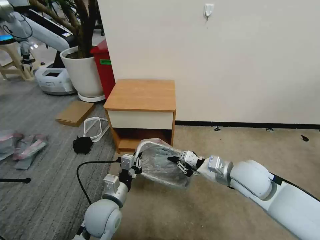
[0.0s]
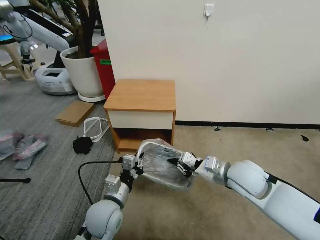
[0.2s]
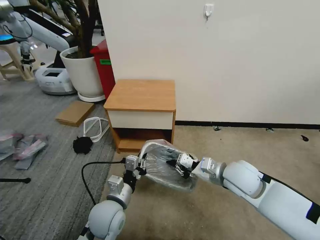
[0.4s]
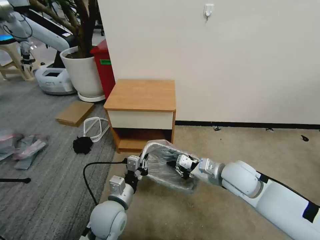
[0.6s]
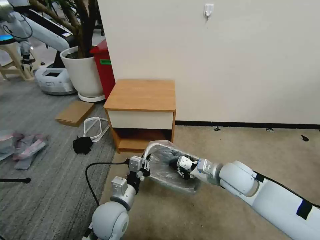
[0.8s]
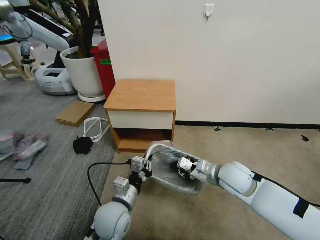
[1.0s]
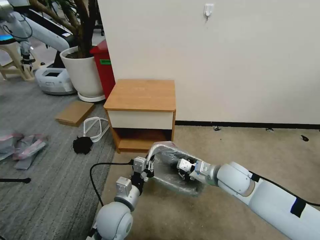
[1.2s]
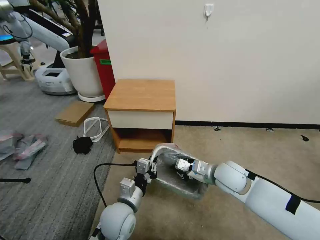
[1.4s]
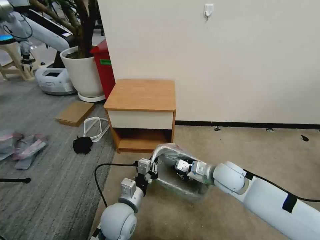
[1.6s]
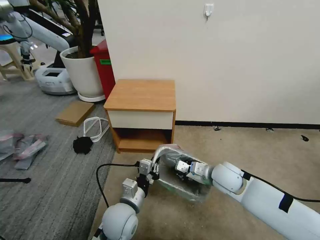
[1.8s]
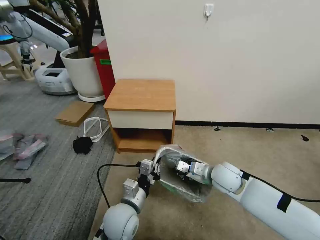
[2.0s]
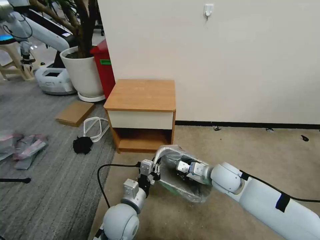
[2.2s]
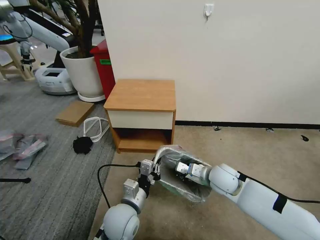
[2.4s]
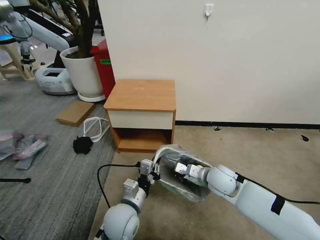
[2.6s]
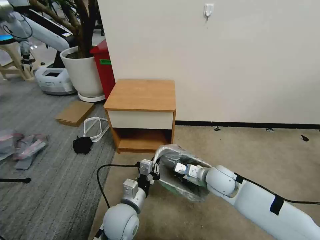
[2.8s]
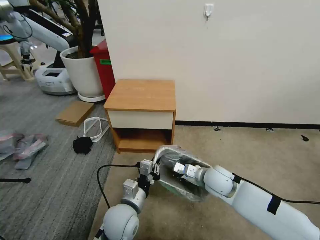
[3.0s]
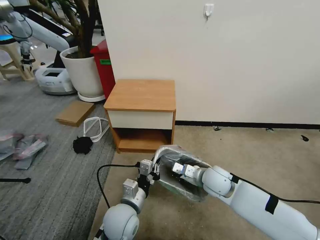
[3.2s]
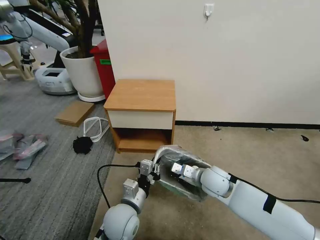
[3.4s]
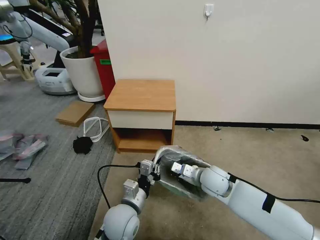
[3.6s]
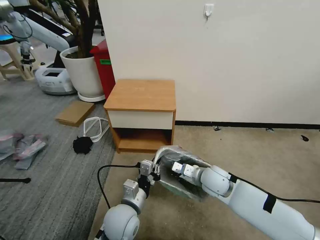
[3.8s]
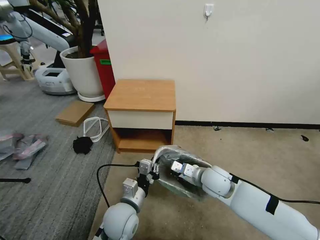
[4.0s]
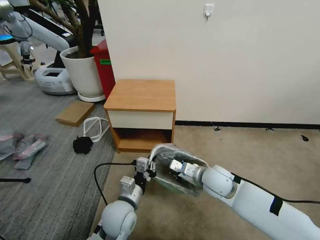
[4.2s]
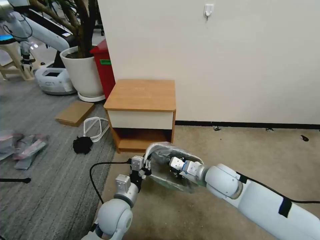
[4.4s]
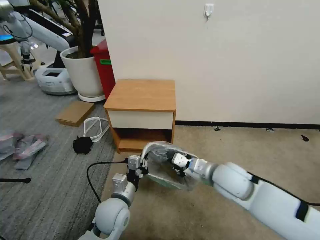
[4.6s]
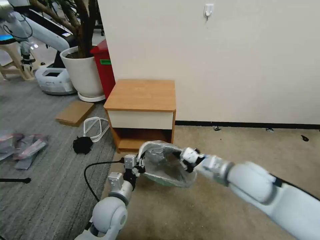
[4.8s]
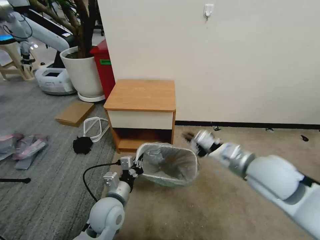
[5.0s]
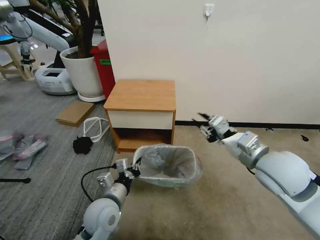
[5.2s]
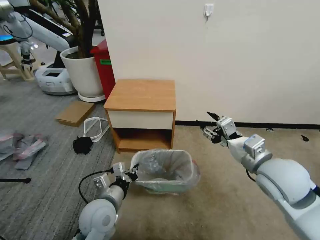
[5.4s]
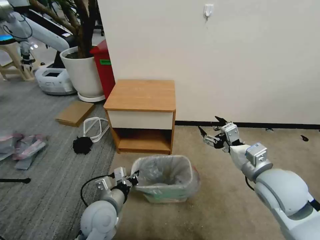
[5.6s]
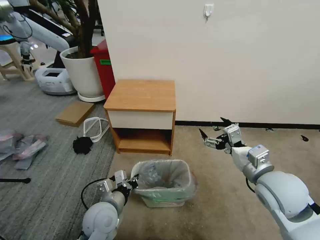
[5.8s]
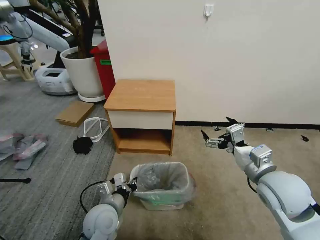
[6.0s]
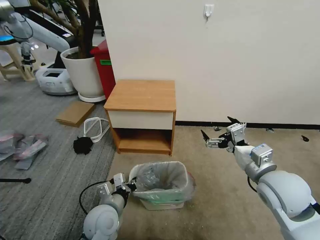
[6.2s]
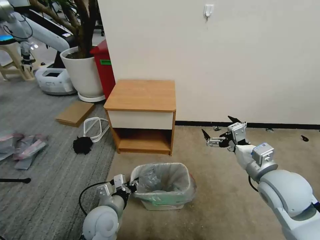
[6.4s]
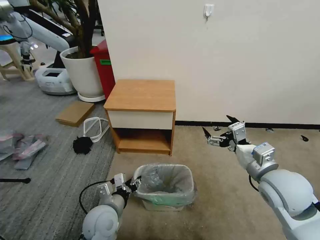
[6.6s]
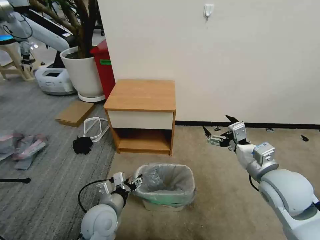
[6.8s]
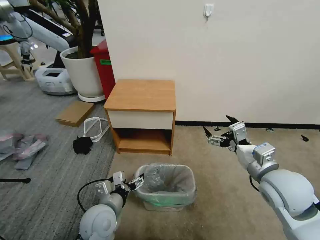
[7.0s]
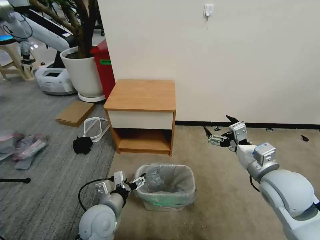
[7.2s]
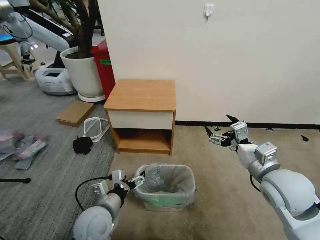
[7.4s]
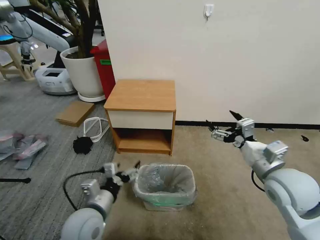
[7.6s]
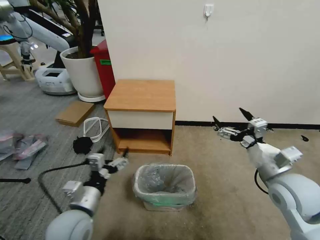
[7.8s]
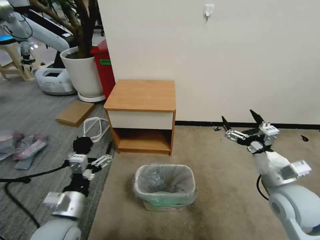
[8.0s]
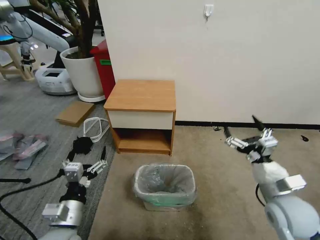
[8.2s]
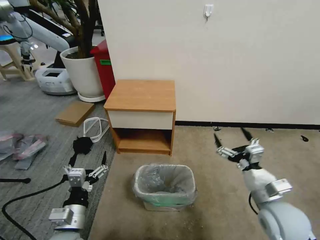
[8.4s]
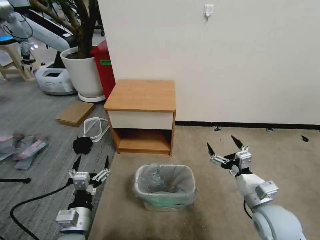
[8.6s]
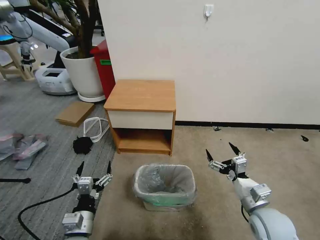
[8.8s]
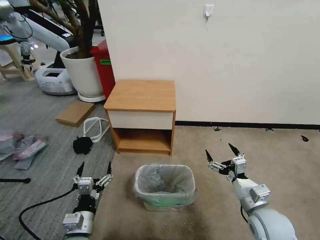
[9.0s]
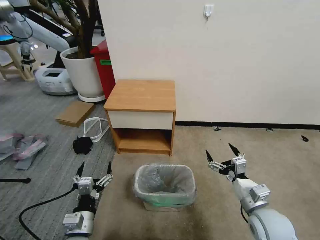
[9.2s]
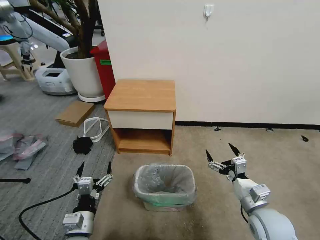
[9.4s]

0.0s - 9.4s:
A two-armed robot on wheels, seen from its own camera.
Task of the whole recording: Pick up the garbage bag from the table and place it over the trash can.
0.0s - 1.6s: The right gripper moves downward, approximately 5 cm.
1.6s - 3.2s: The grippers make only small movements.
3.2s - 4.8s: The right gripper moves upward and backward, roughly 15 cm.
4.8s - 6.2s: The right gripper is displaced to the right by about 5 cm, and opens its fingers.
6.2s - 7.8s: The left gripper moves upward, roughly 5 cm, and opens.
7.8s - 9.4s: The two grippers go some 10 cm downward.

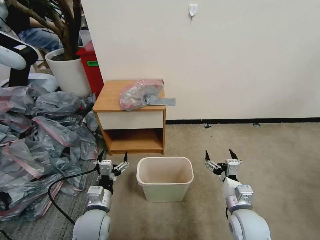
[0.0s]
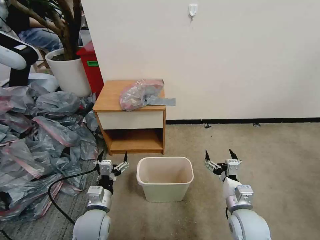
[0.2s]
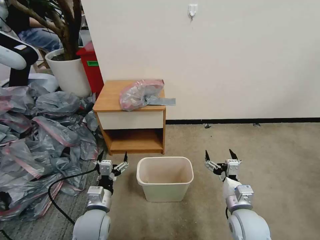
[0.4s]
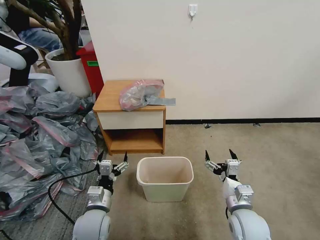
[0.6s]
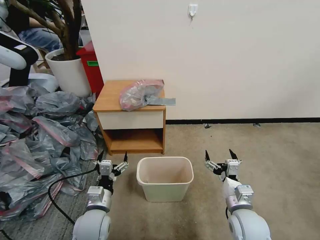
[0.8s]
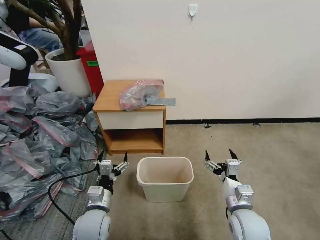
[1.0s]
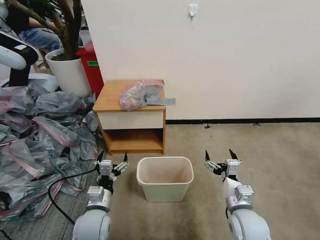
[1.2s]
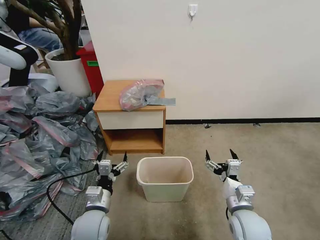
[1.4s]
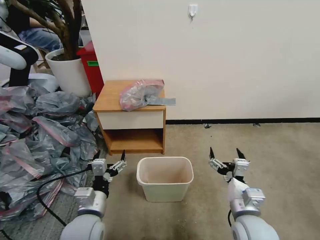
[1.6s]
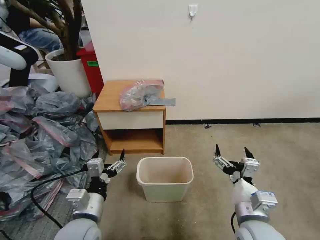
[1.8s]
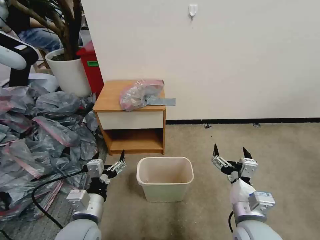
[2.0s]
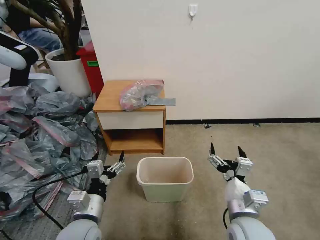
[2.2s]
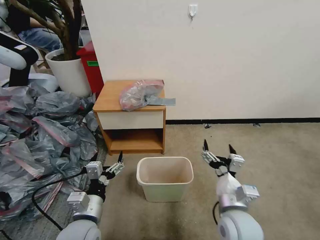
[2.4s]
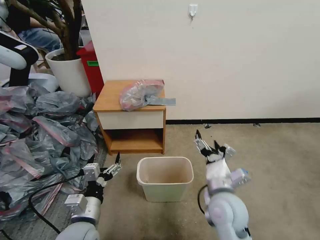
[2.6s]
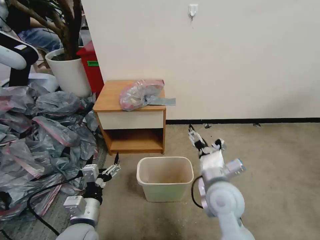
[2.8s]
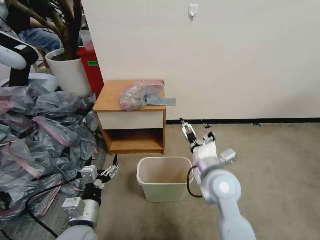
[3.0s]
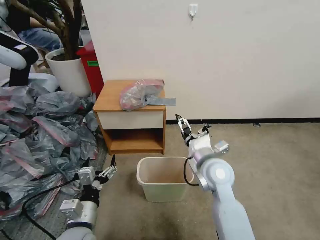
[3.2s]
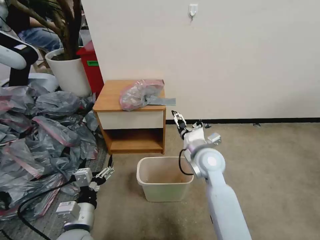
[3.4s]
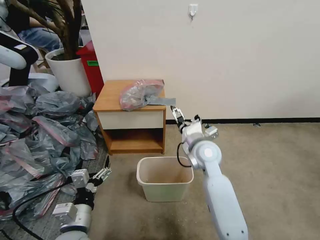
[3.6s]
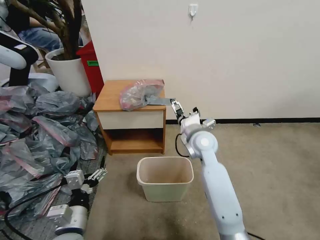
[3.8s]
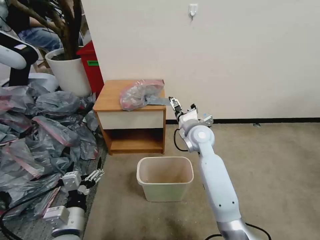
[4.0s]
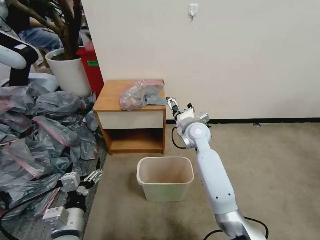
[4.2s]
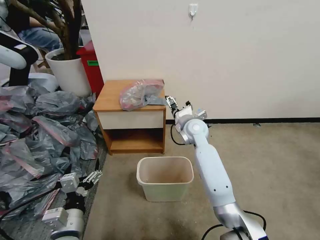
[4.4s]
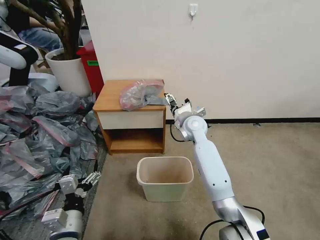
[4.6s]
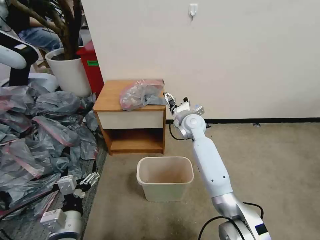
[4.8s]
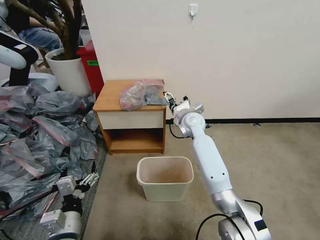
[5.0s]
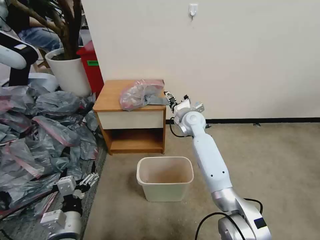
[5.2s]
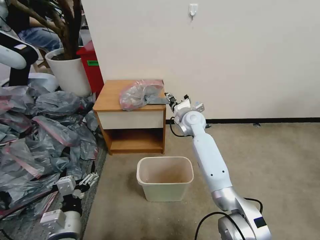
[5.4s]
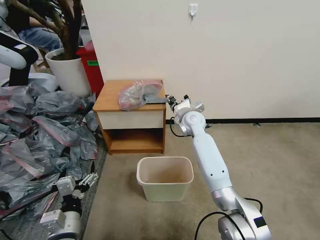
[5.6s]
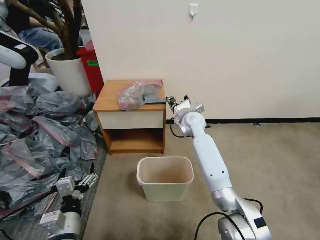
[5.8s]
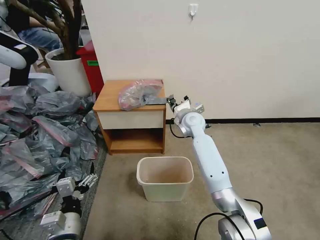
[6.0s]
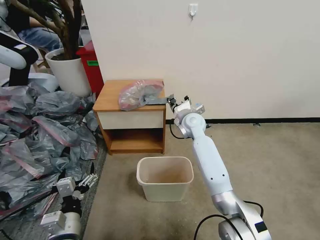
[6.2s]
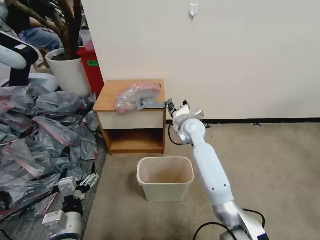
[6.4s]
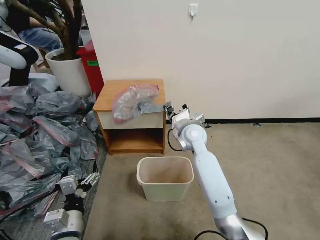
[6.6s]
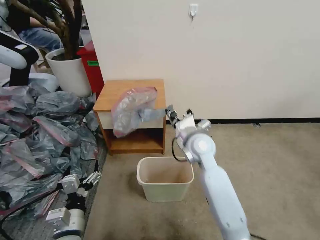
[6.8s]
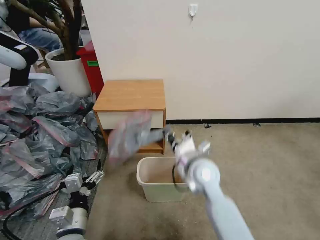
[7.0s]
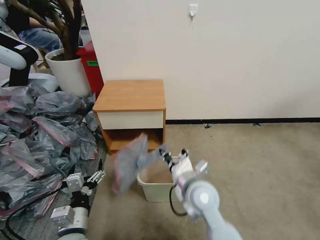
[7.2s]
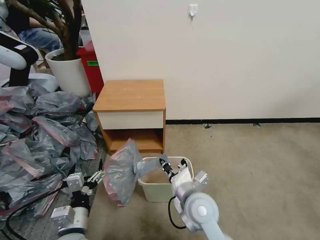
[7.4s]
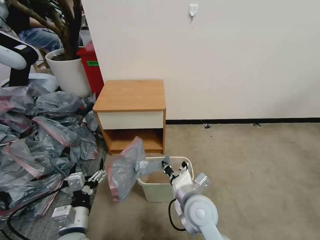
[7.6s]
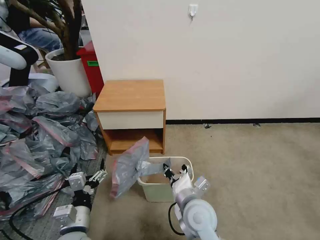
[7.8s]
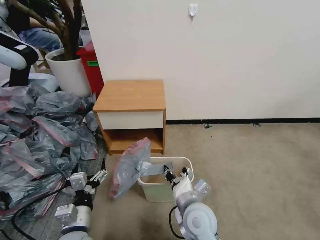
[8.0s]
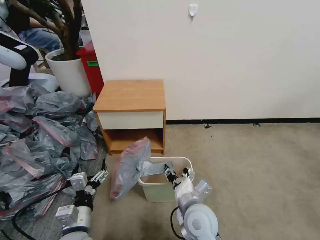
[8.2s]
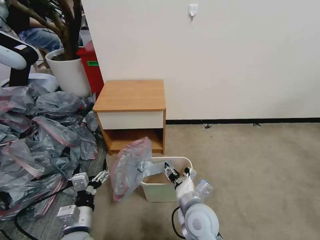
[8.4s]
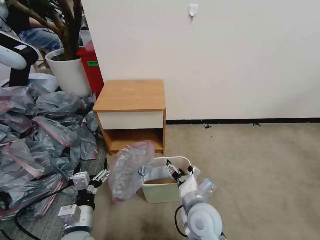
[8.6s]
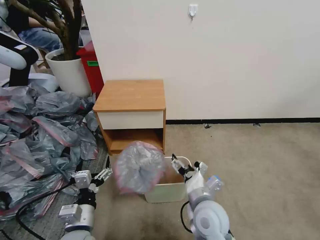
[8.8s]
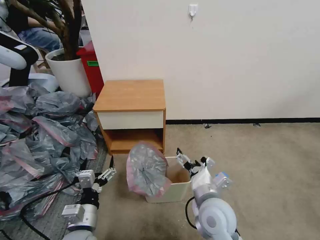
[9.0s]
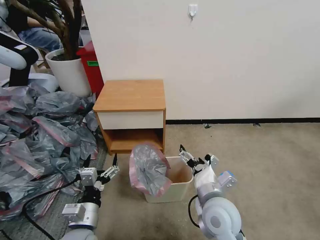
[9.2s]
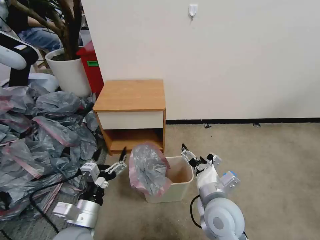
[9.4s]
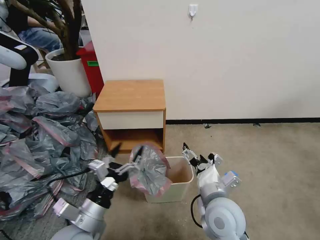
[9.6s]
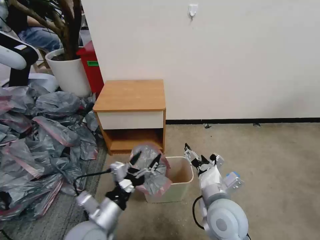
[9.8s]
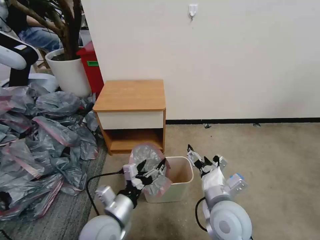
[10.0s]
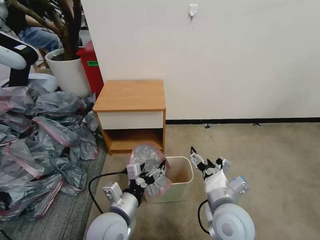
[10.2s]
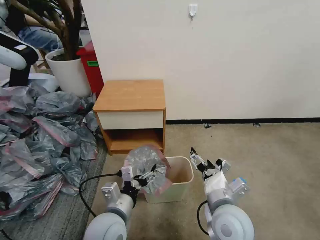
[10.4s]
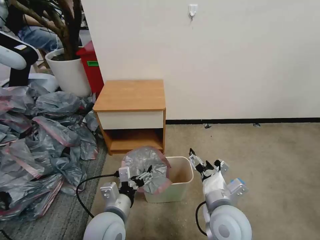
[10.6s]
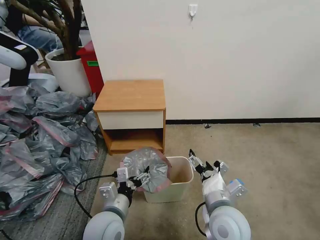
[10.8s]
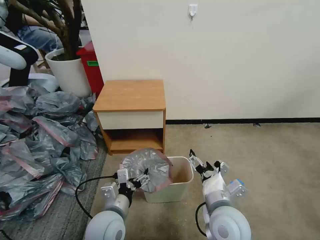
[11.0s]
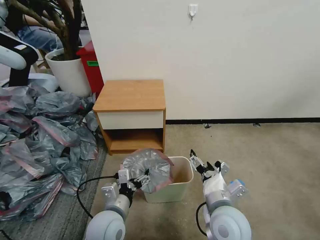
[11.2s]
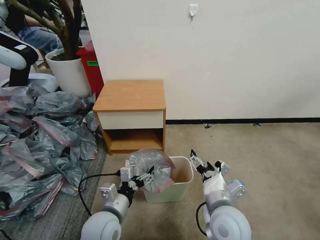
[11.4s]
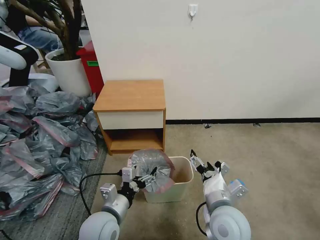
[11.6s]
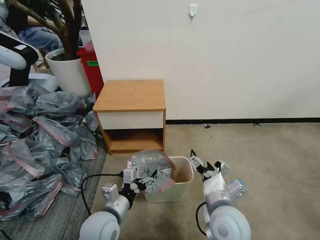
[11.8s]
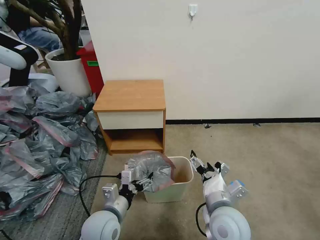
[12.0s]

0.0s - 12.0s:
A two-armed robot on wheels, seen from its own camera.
Task of the whole recording: Pick up the garbage bag from the table and place it over the trash can.
1.6s - 3.0s: The right gripper moves forward, to the left and upward, approximately 15 cm.
3.0s - 4.4s: The right gripper heads forward, covering approximately 20 cm.
4.4s - 6.0s: The right gripper closes.
6.0s - 7.6s: The right gripper travels backward by some 30 cm.
7.6s - 9.0s: The right gripper opens.
9.0s - 10.4s: The left gripper shifts about 10 cm to the right.
10.4s - 12.0s: The left gripper moves about 5 cm.

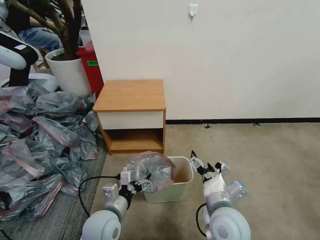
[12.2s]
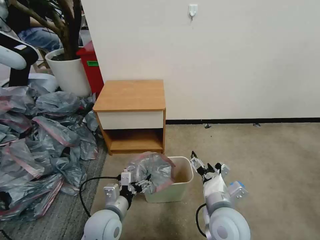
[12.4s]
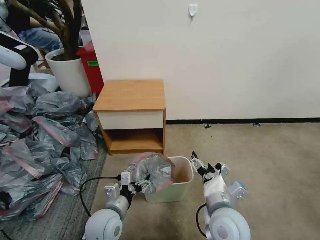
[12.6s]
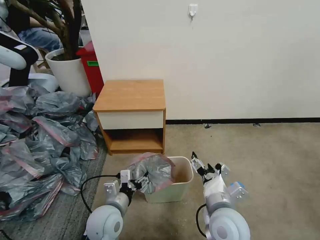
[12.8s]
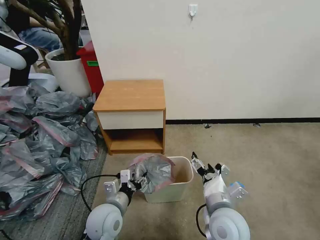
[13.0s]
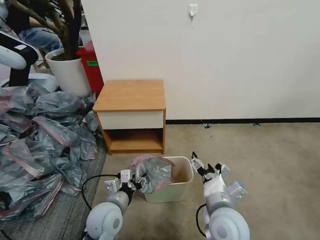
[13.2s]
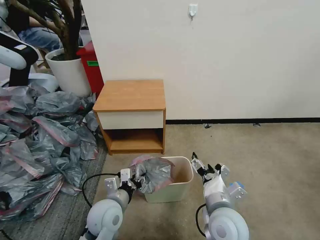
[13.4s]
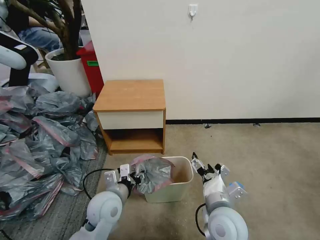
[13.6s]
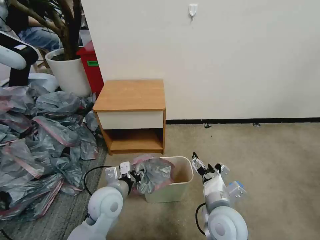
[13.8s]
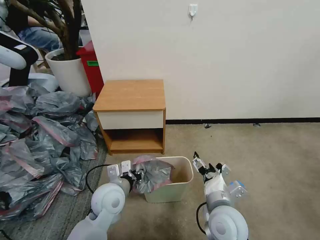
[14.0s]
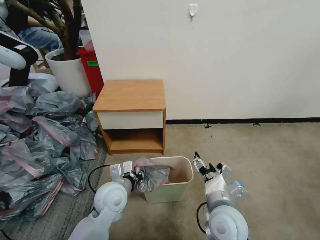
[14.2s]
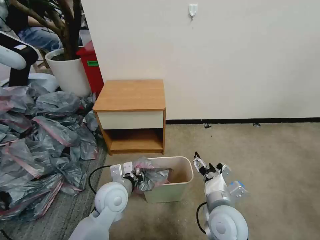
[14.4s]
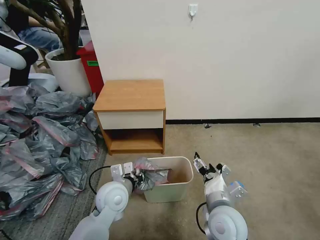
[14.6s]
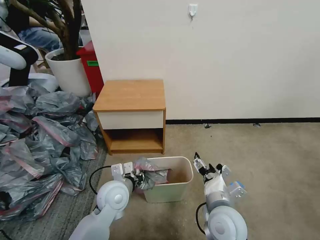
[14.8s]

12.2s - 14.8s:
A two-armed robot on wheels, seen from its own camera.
Task of the whole recording: Pick up the garbage bag from the table and place it over the trash can.
12.2s - 13.4s: The left gripper closes up.
13.4s - 14.8s: The left gripper is displaced forward by some 5 cm.
